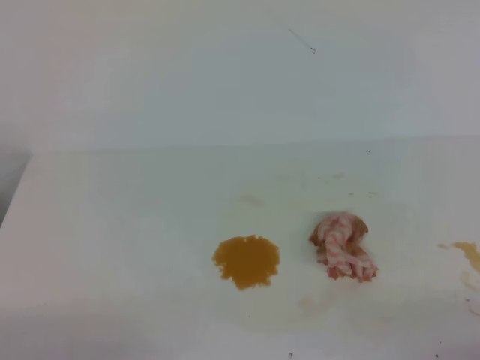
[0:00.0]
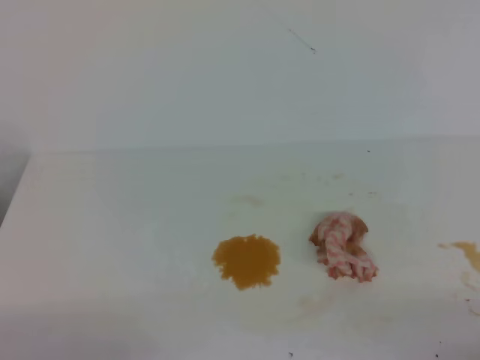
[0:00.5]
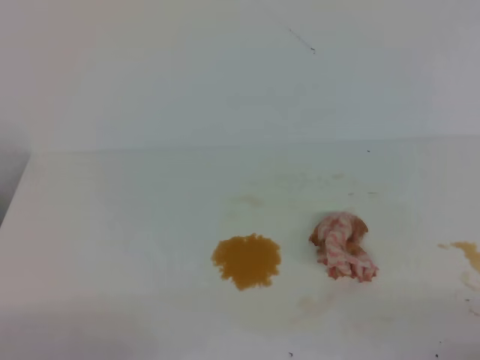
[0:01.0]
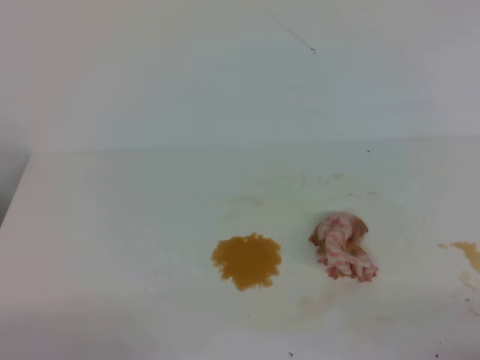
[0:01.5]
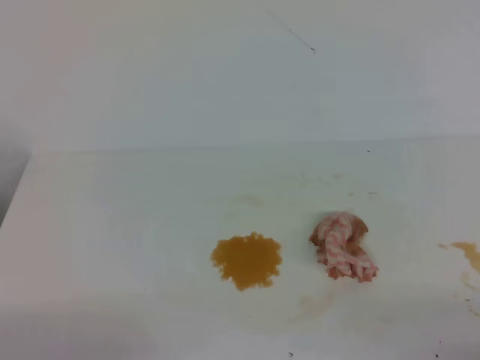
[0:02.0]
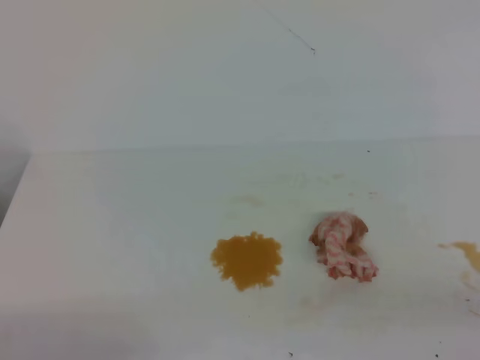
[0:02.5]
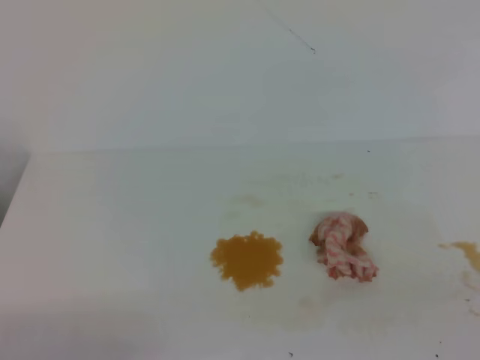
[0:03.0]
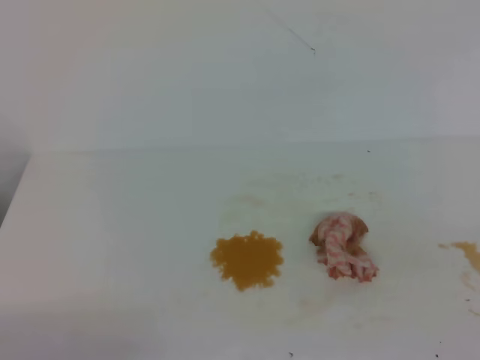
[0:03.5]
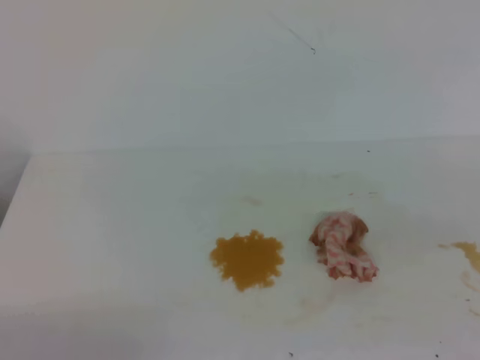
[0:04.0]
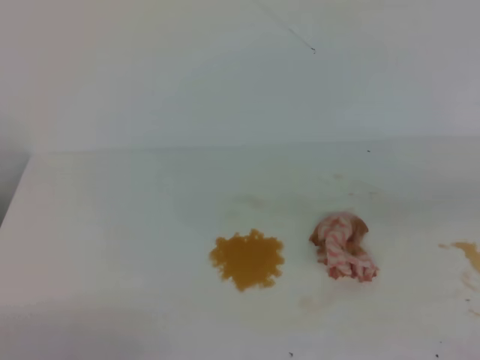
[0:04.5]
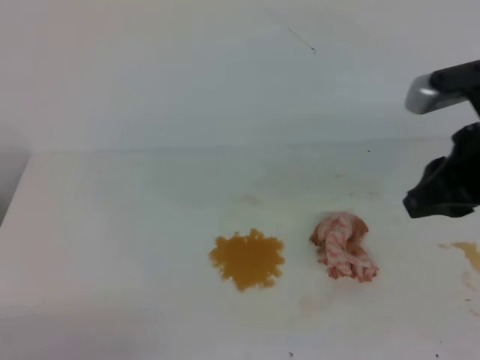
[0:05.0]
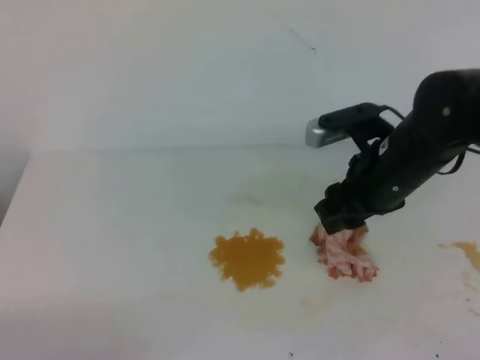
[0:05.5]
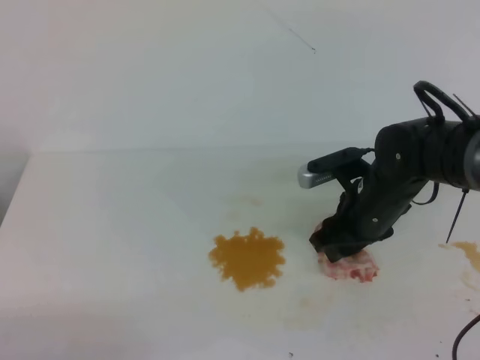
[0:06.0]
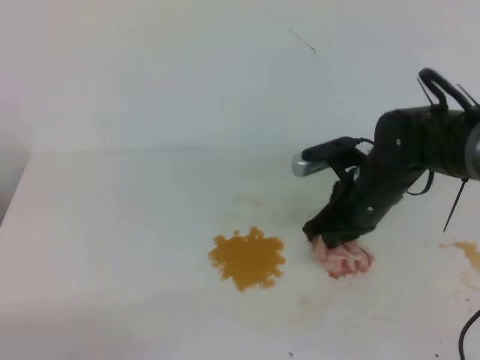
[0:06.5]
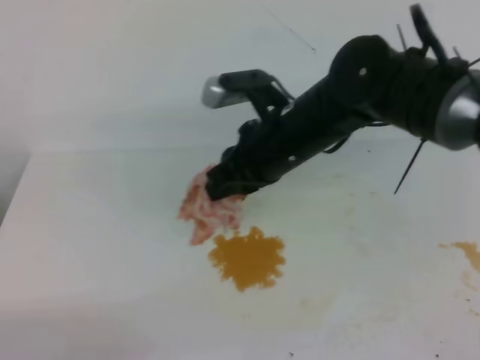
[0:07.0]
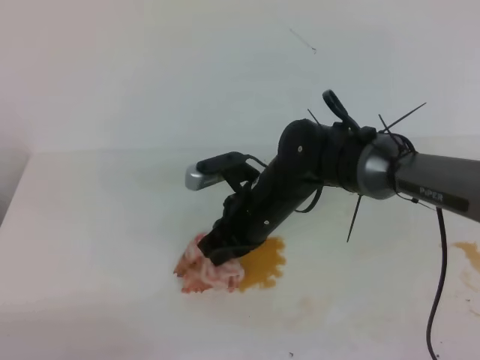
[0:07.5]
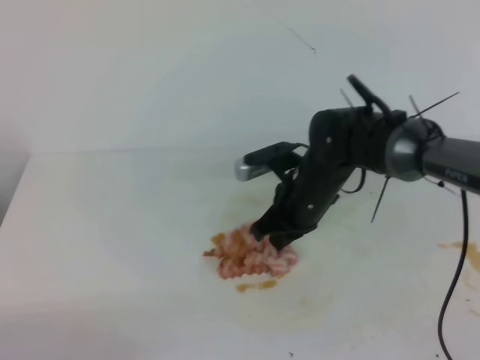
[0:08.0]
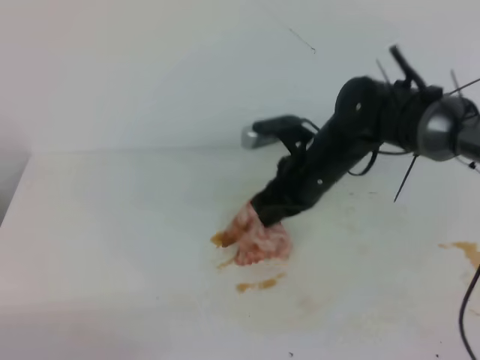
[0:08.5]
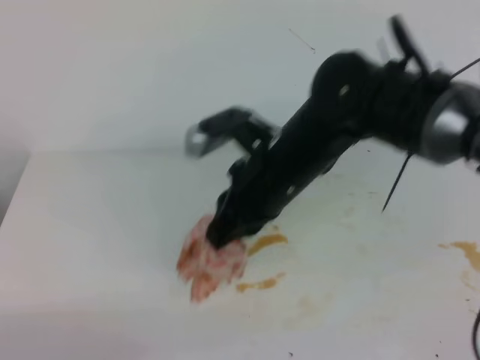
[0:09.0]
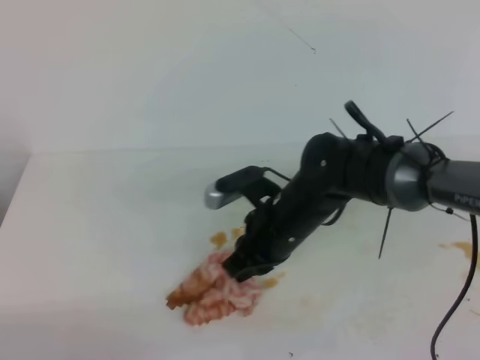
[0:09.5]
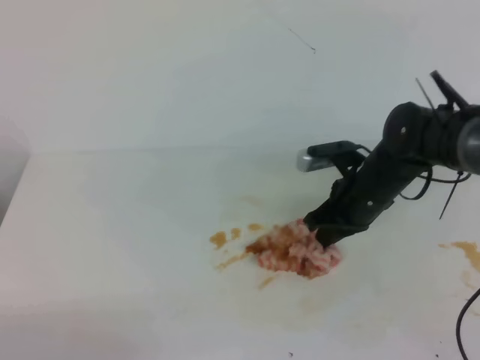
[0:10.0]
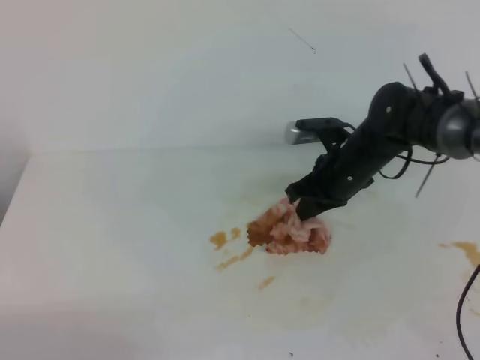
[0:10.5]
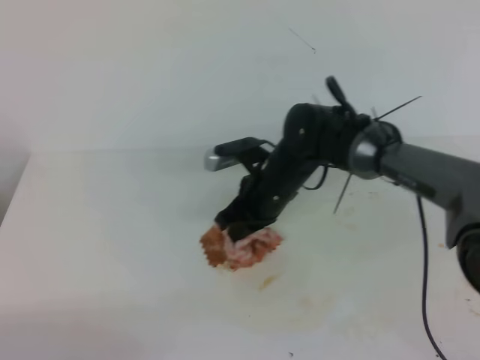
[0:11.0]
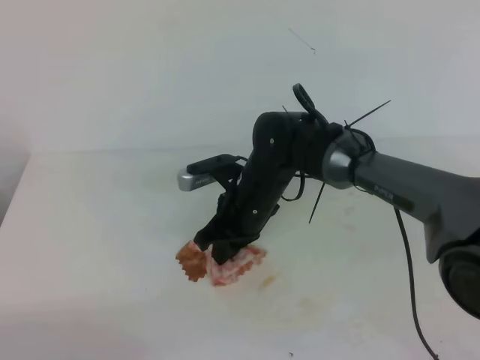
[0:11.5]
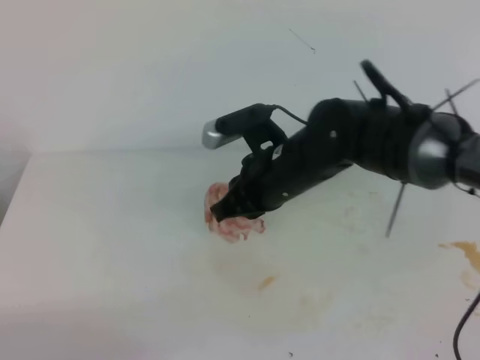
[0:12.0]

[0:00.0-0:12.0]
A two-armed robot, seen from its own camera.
0:00.0 to 0:02.0: The two grippers keep their place.
0:04.0 to 0:06.0: The right gripper moves forward, to the left and downward, about 35 cm, and opens.
0:06.0 to 0:08.0: The right gripper shifts some 10 cm to the left, and closes its fingers.
0:08.0 to 0:10.0: The right gripper goes about 5 cm to the right, and travels upward and back again, some 10 cm each way.
0:10.0 to 0:12.0: The right gripper goes some 10 cm to the left and upward.

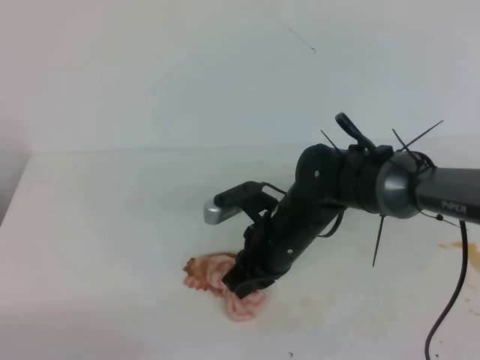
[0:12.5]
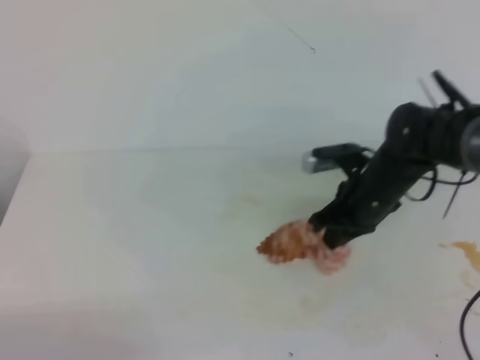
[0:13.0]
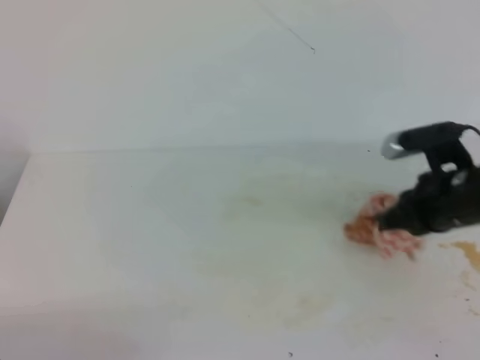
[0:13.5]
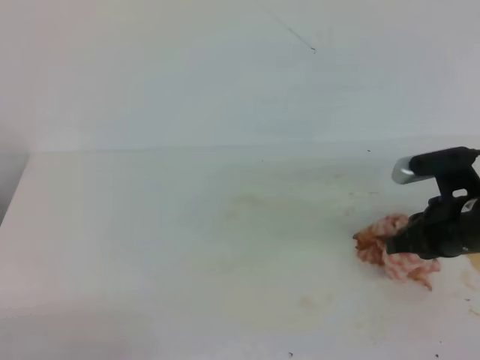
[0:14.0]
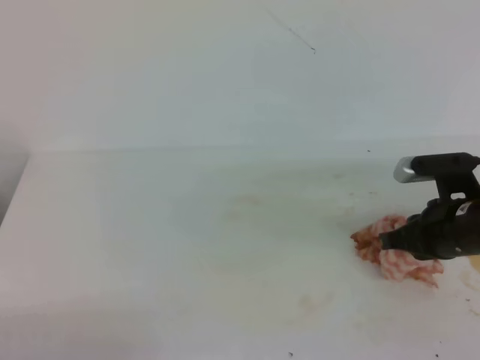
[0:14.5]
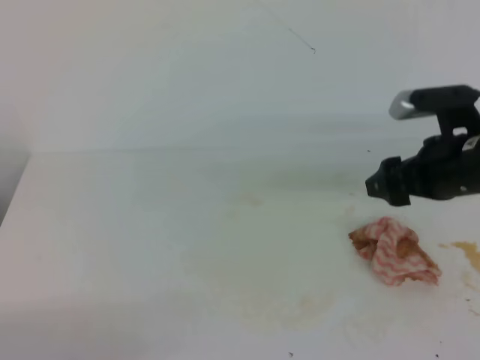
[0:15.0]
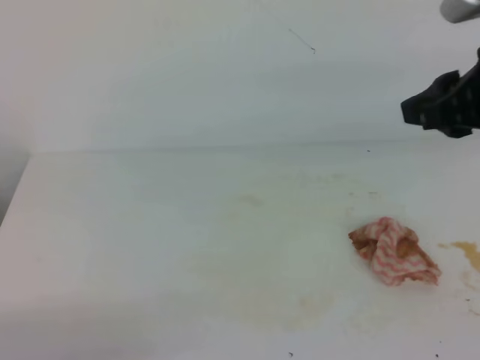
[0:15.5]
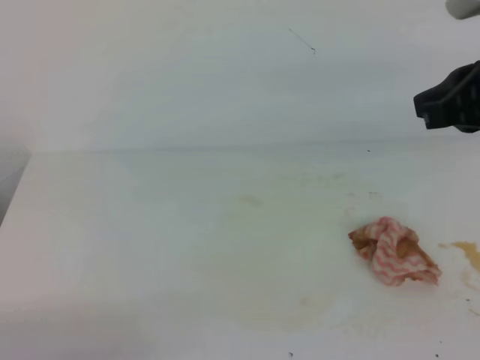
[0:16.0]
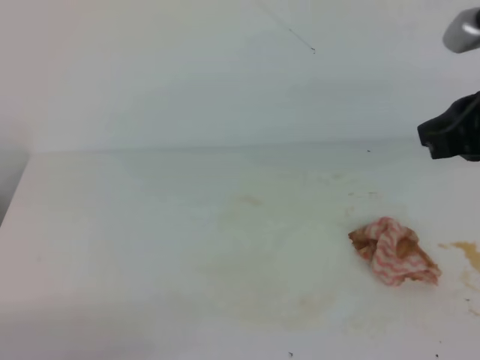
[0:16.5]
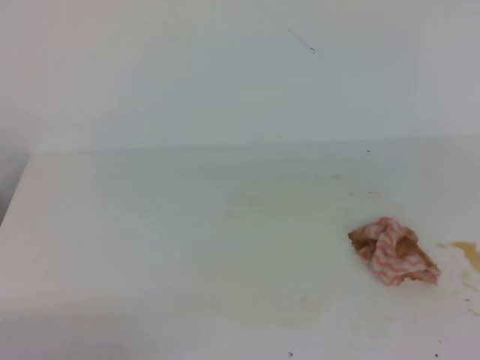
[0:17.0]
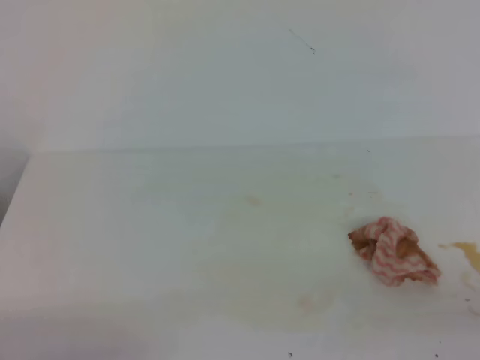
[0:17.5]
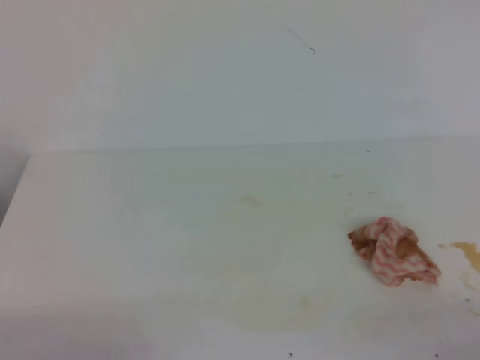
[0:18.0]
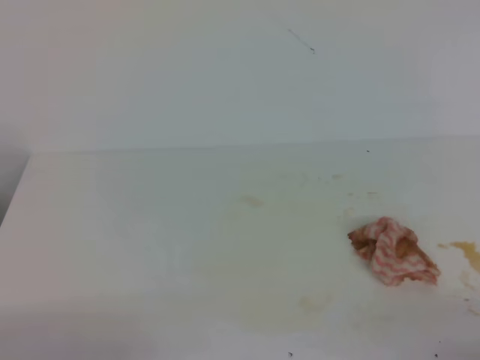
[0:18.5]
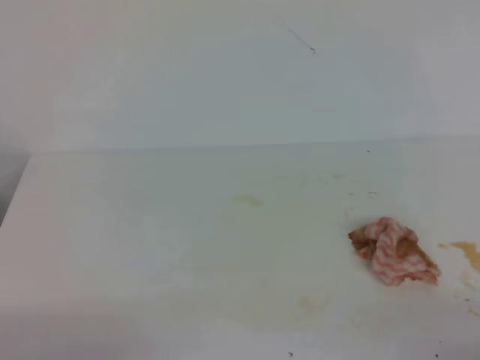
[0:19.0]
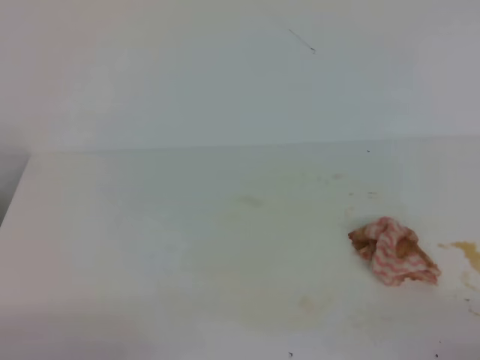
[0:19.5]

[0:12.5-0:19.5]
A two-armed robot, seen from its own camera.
0:12.5 to 0:14.5: The right gripper goes approximately 20 cm to the right.
0:14.5 to 0:16.0: The right gripper heads upward, covering about 20 cm, and opens, then closes once more.
0:16.0 to 0:17.5: The right gripper moves backward, downward and to the right, roughly 30 cm.
